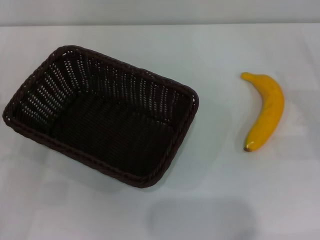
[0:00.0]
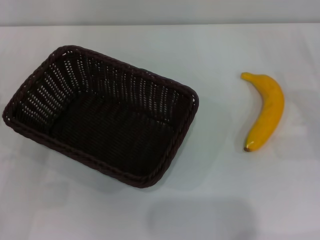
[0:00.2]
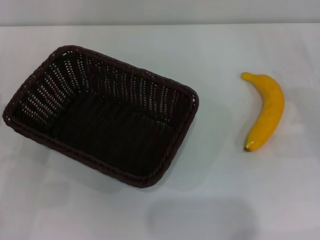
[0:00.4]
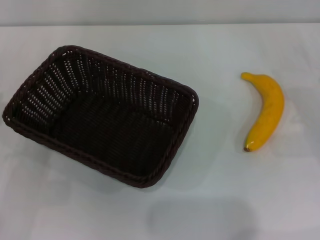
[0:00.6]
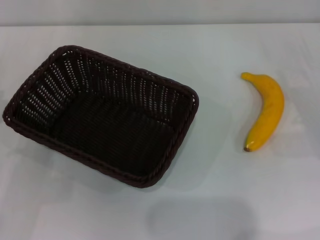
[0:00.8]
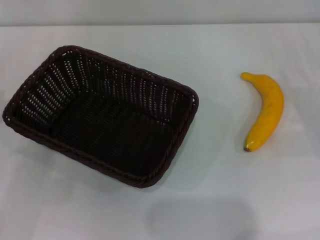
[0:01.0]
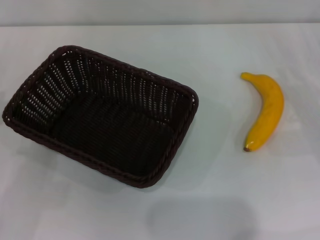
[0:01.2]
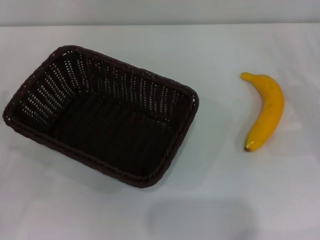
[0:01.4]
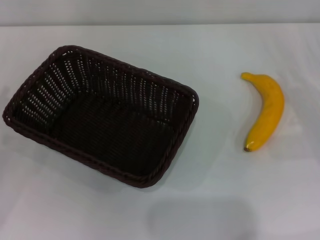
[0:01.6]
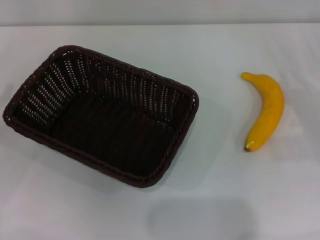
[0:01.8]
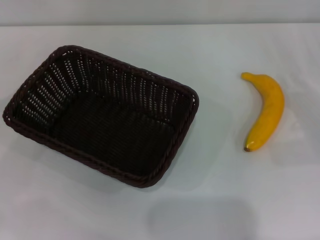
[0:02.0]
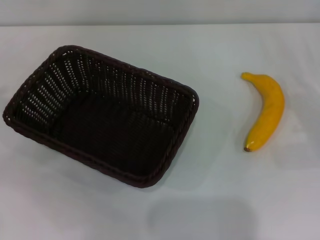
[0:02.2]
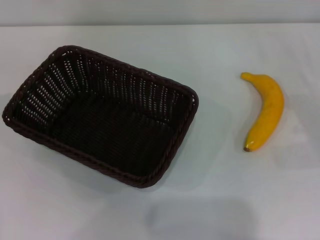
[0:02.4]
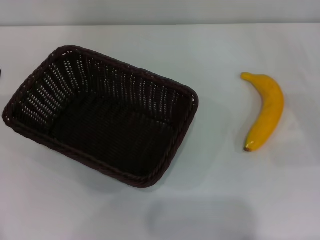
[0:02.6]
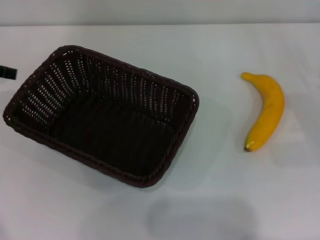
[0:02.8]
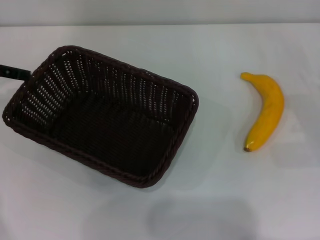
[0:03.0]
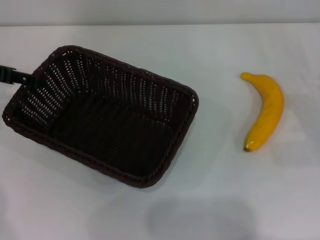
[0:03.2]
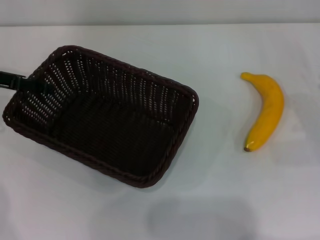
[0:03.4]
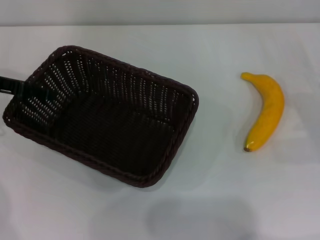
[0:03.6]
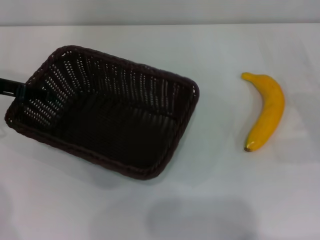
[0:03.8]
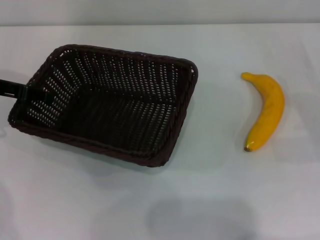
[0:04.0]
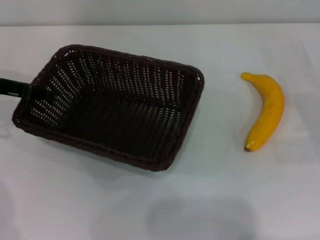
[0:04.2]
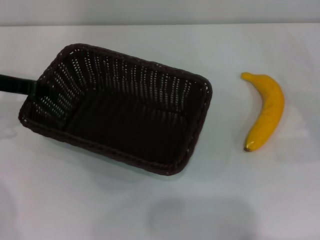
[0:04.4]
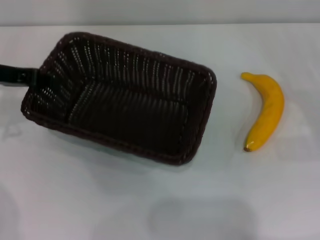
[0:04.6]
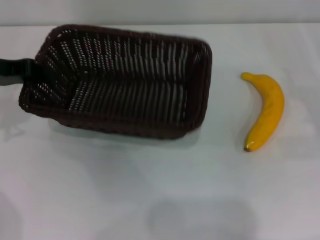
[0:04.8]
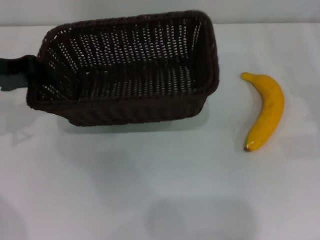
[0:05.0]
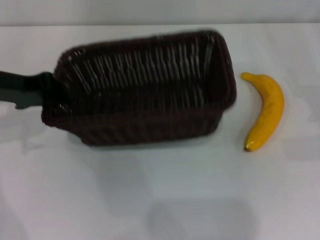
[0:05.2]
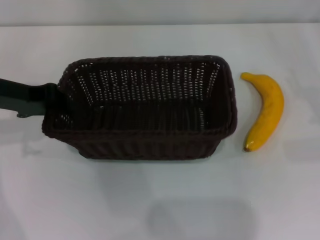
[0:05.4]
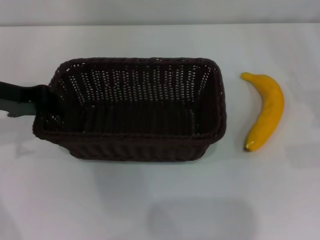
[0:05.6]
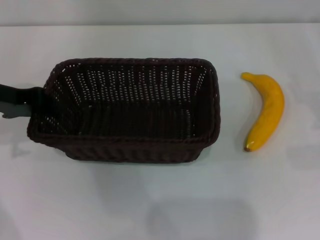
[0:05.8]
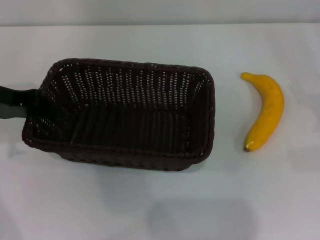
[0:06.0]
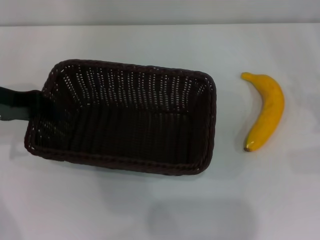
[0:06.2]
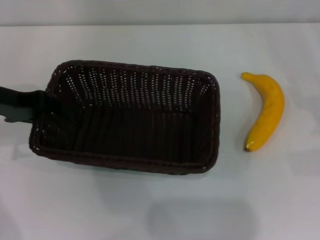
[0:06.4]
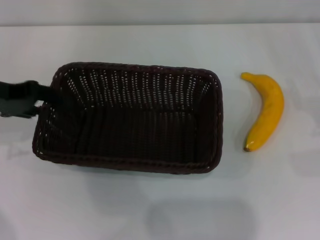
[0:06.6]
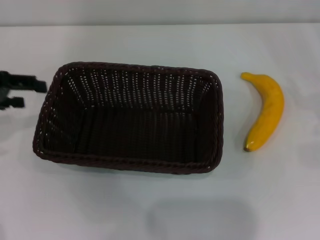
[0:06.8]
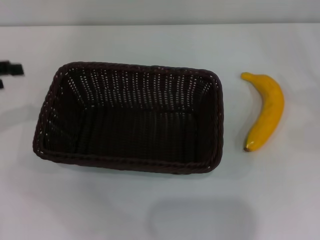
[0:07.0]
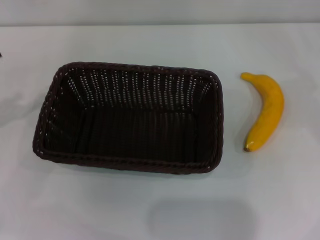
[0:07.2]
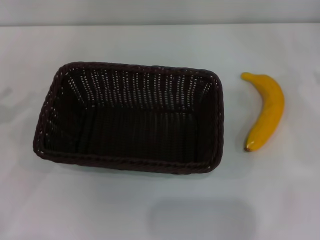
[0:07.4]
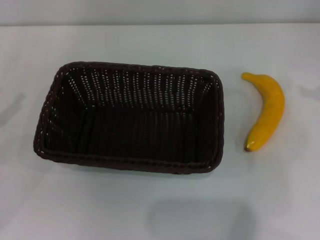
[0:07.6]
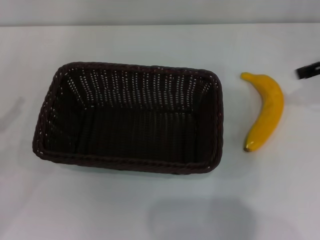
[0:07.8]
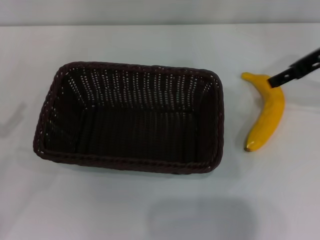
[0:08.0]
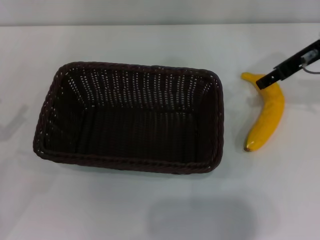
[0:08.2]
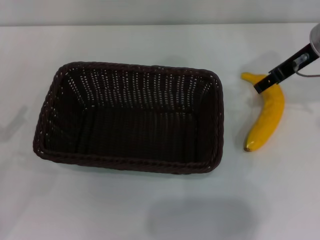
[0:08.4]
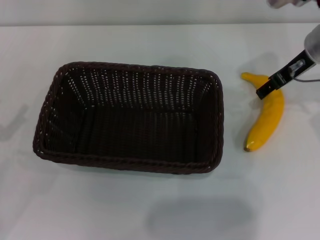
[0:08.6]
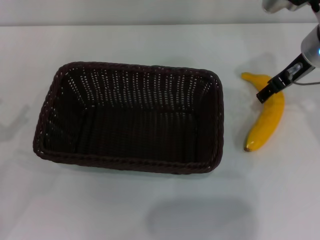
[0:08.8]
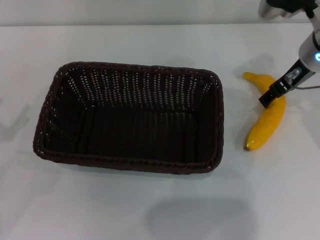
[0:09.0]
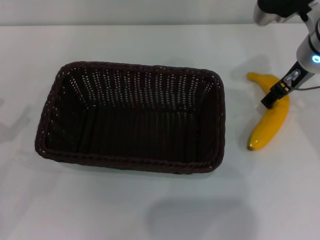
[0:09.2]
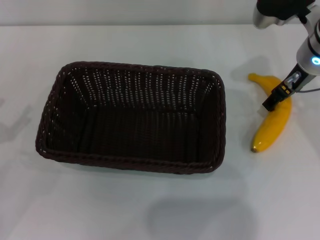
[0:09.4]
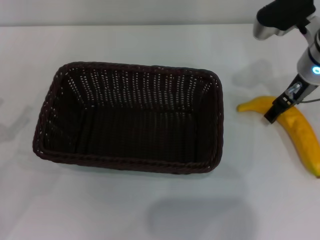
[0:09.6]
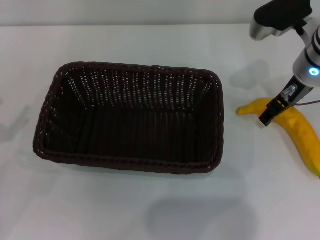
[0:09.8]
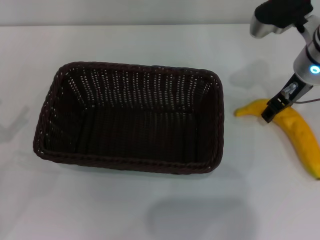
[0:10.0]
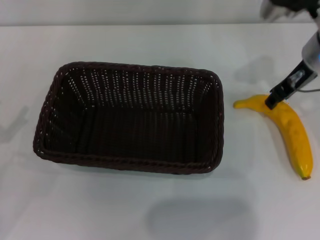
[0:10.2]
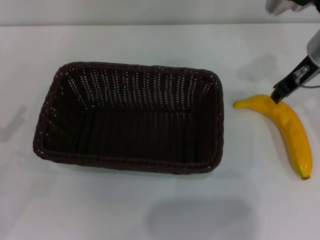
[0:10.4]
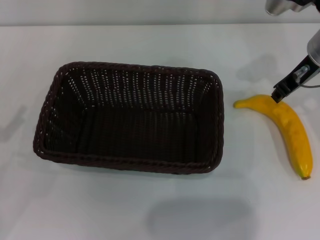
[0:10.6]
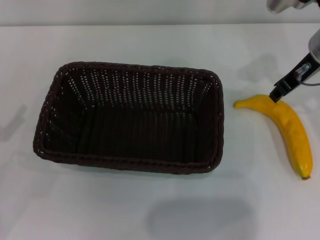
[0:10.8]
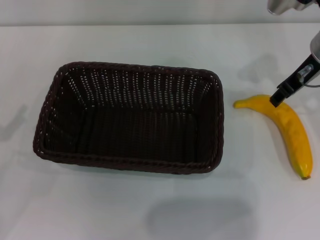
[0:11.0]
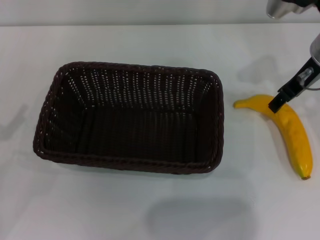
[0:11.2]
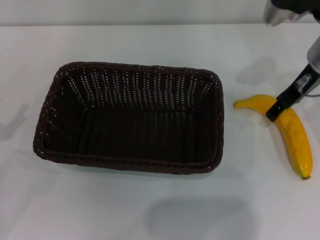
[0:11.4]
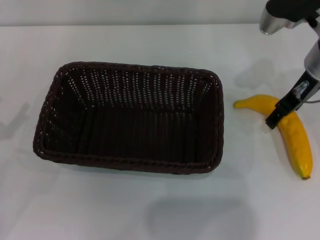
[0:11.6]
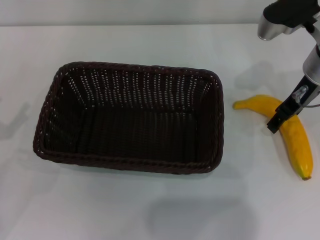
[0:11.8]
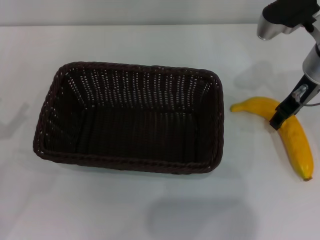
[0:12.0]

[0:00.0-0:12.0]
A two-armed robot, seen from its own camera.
Step, 0:00.0 to 0:04.8: Pick up the dark basket with the left gripper.
Step, 0:05.0 to 0:07.0: Place the dark basket in the center of view with the left gripper.
0:03.0 to 0:04.4: The left gripper travels downward by roughly 5 cm, and closes its fingers.
0:04.4 to 0:06.0: The right gripper shifts by some 5 cm.
0:06.0 to 0:07.6: The left gripper heads to the left and backward, covering some 15 cm, and opens, while the right gripper goes some 15 cm upward and forward.
0:07.6 to 0:09.0: The right gripper travels to the left by about 15 cm.
0:09.0 to 0:10.4: The right gripper closes its fingers.
0:10.4 to 0:12.0: The right gripper opens up.

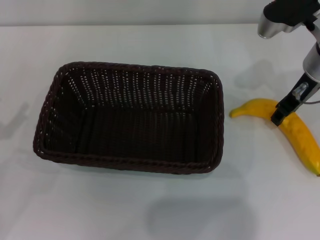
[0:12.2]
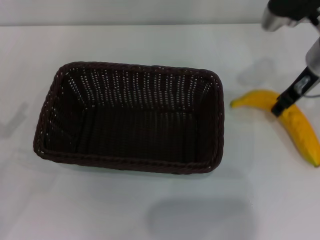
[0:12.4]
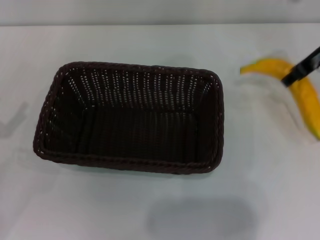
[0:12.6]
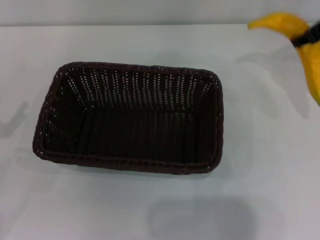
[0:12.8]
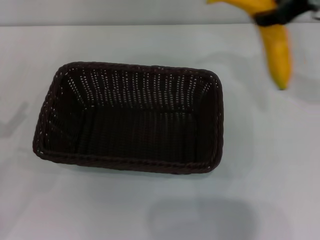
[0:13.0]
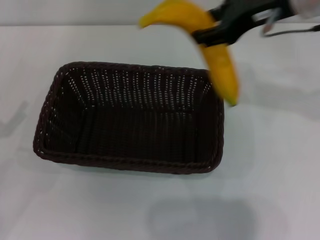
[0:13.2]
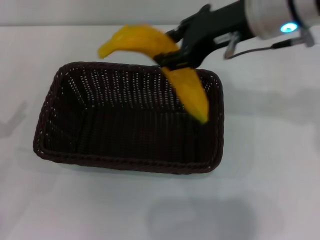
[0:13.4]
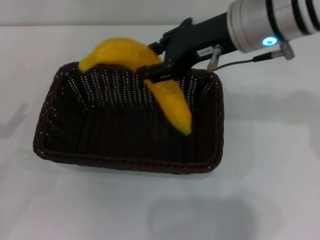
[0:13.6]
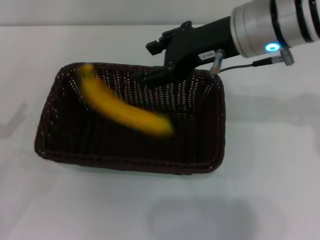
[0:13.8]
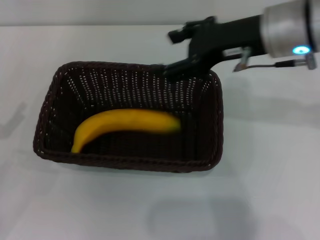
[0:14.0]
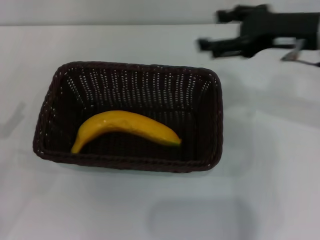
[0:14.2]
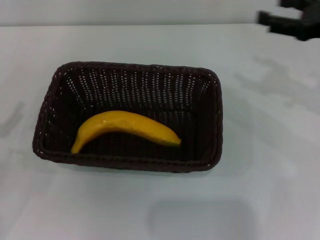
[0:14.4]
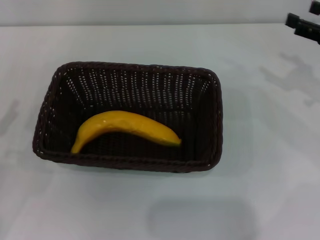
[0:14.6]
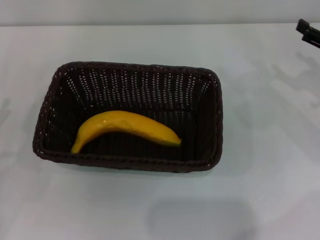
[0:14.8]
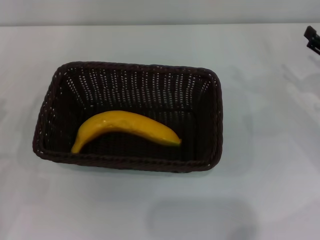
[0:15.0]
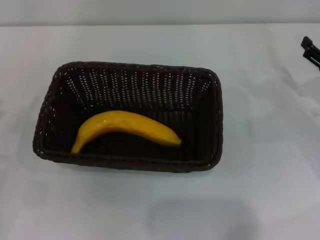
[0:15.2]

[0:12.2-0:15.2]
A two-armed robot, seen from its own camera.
Step, 0:12.8 to 0:13.8: Place the banana into the dark basket with the right gripper.
0:12.2 to 0:13.8: The right gripper moves to the left, upward and backward, roughly 15 cm.
0:13.8 to 0:15.2: The right gripper is displaced to the right and downward by some 30 cm, and opens its fingers.
